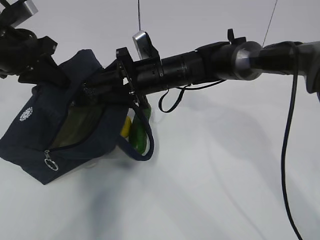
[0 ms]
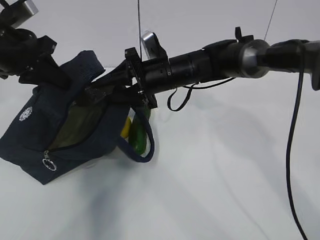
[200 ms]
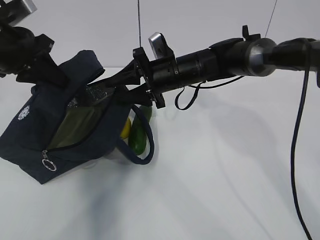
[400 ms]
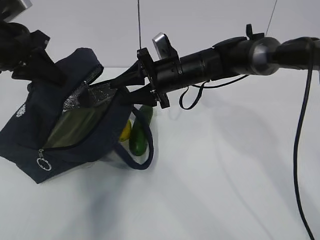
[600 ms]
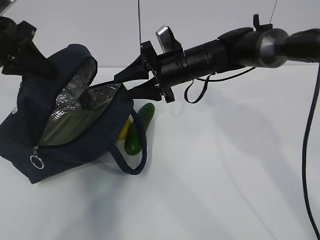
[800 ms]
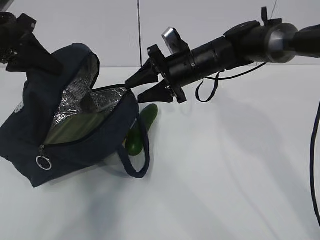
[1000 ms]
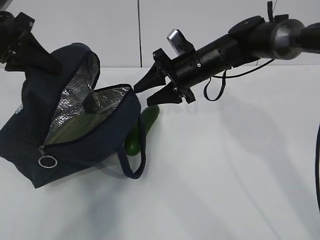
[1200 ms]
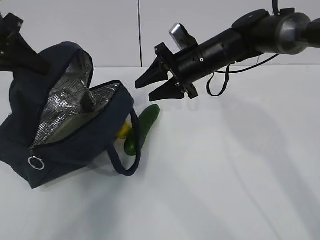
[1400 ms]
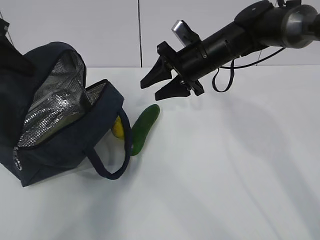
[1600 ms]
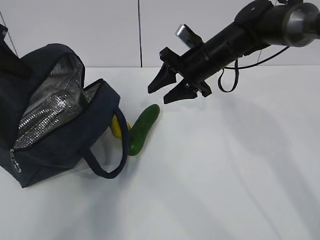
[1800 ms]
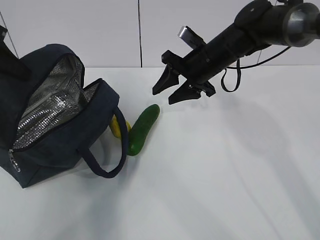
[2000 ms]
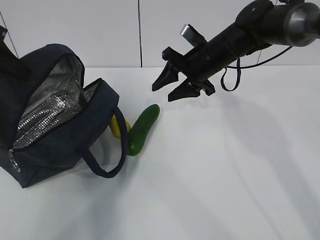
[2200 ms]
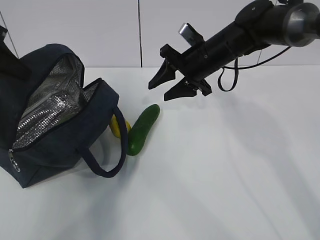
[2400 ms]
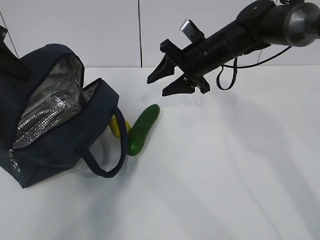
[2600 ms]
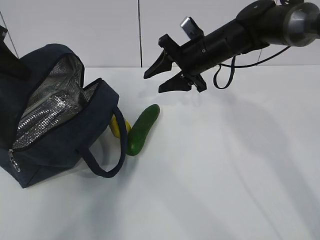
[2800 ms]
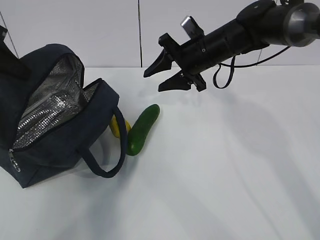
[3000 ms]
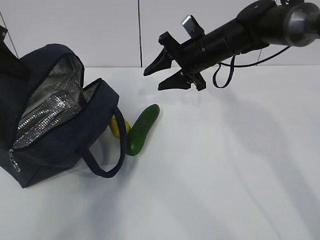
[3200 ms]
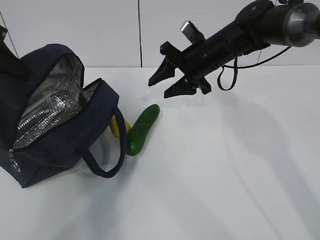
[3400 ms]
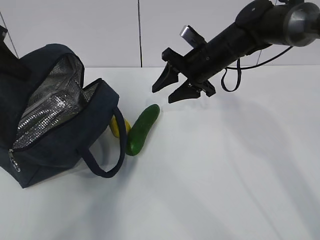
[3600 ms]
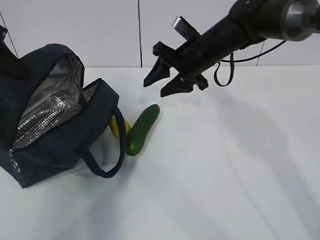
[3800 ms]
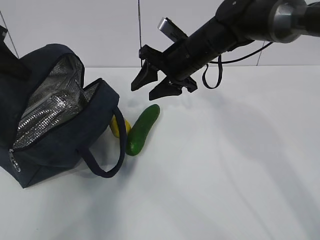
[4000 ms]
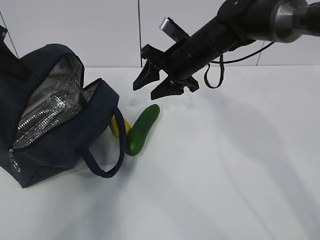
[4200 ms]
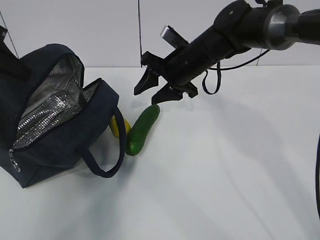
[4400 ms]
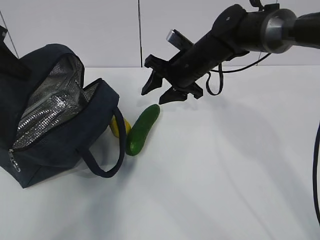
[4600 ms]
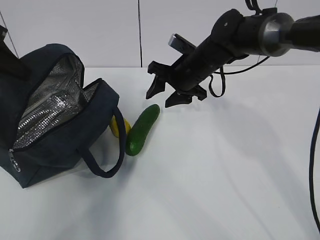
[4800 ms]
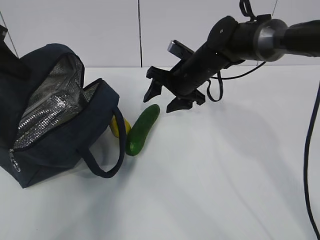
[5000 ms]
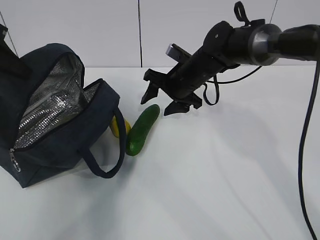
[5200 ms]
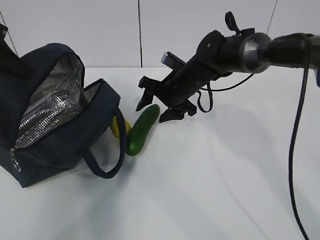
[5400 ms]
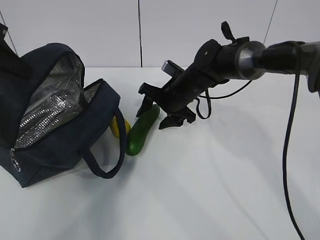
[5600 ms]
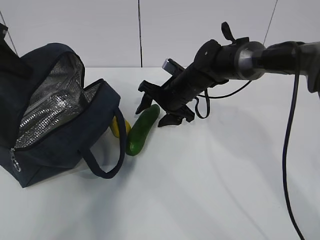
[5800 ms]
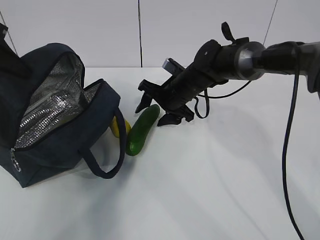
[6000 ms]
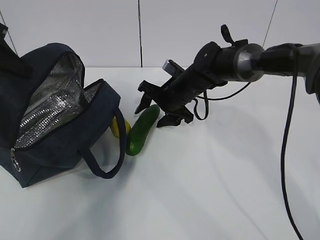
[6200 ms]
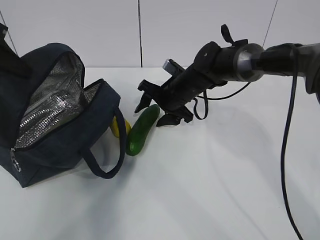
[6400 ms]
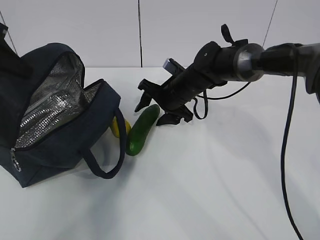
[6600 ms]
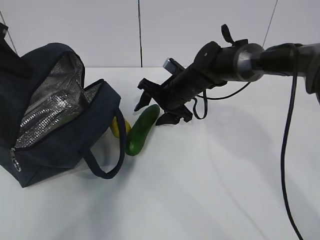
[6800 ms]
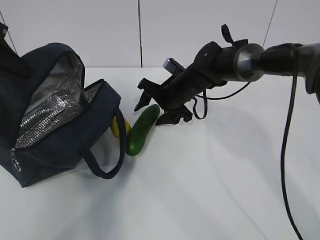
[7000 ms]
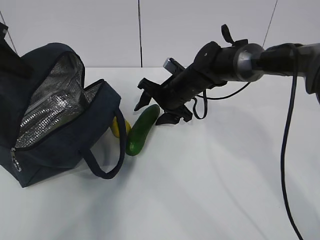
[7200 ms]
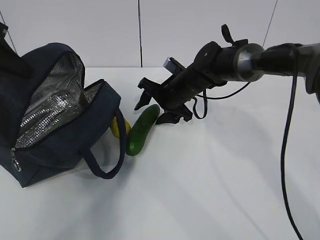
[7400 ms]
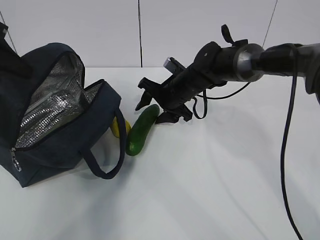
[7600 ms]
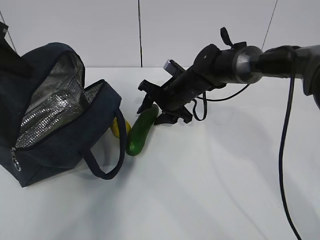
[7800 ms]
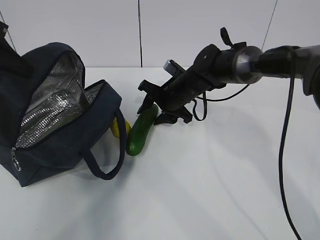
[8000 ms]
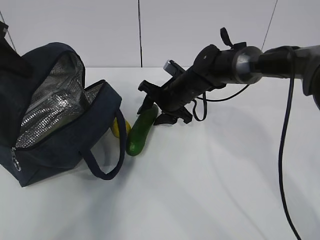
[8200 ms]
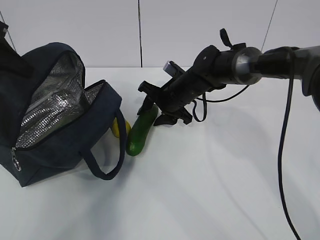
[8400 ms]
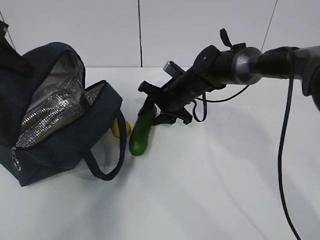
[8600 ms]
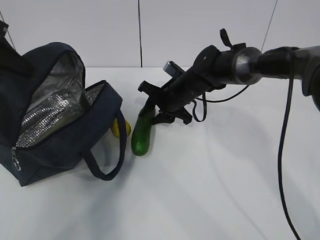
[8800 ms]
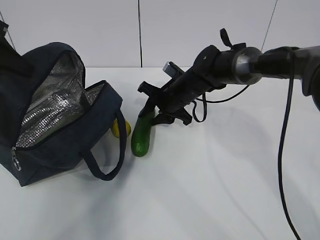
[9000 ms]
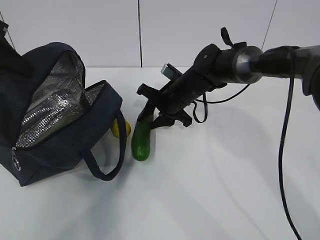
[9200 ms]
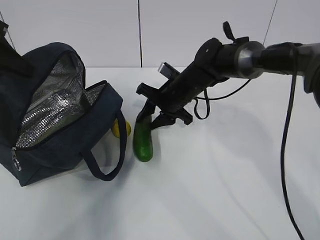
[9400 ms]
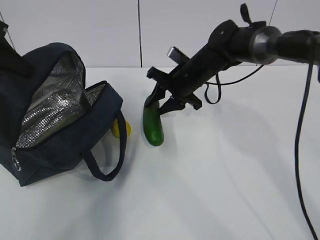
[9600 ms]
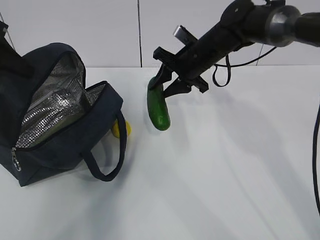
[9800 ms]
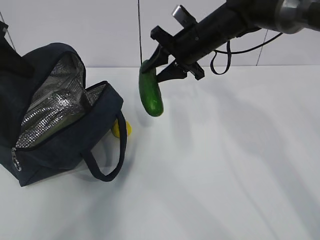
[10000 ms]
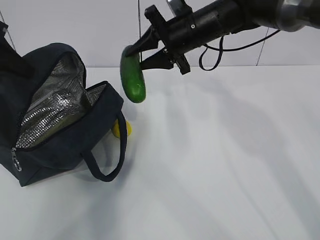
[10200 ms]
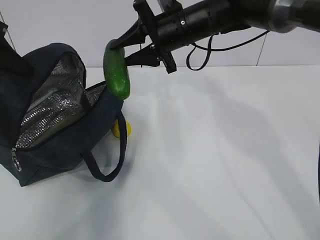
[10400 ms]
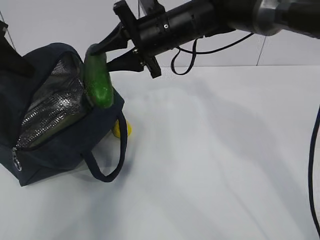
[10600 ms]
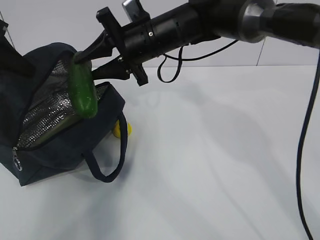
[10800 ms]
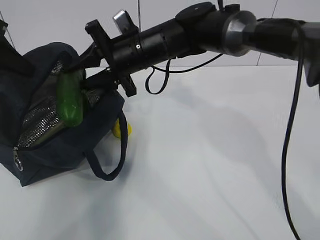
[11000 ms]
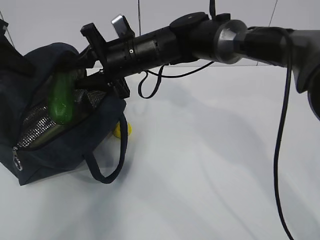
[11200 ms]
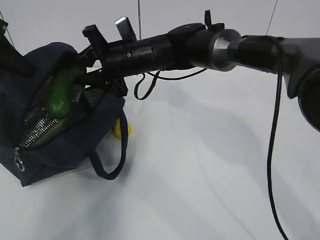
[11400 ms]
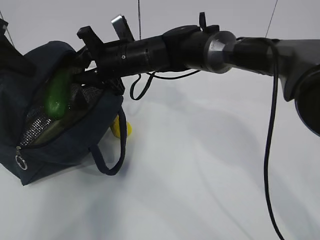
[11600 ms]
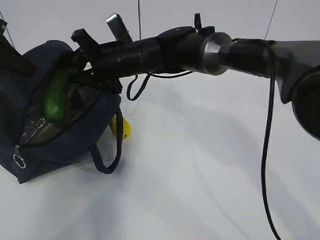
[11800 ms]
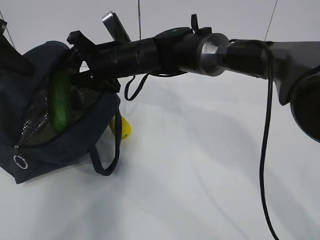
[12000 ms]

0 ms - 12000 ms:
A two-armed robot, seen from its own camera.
Step, 0 ms - 3600 ms: Grab the cucumber with your right hand.
Step, 3800 ms - 6600 ms: Place it into the bag with your right hand.
Step, 6800 ms - 11200 ms: Grab the lemon with your right hand.
0 ms - 1600 ms: The right gripper shifts some 10 cm to the right; the left gripper is displaced to the left by about 5 cm.
1600 ms - 4400 ms: The grippers stay close to where they were, moving slightly.
4400 ms - 6000 ms: The right gripper travels downward by some 10 cm.
6000 ms - 7600 ms: Both grippers stay about where they are.
7600 ms - 9000 ms: The right gripper closes up.
9000 ms - 10400 ms: The right gripper heads upward, covering some 15 cm.
10400 ms - 12000 ms: The right gripper goes about 10 cm to the left and downward.

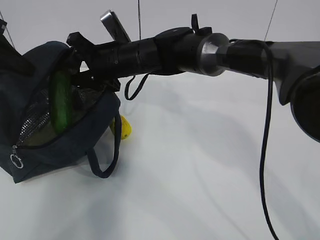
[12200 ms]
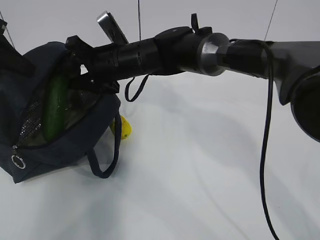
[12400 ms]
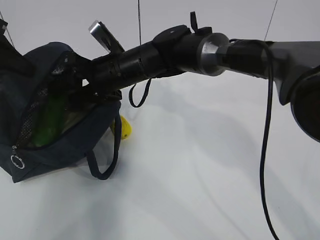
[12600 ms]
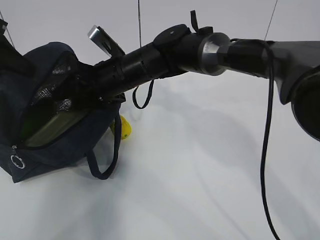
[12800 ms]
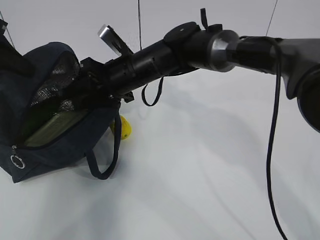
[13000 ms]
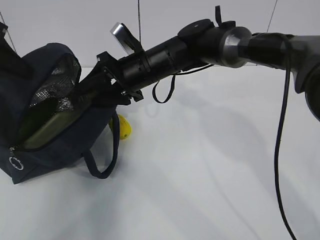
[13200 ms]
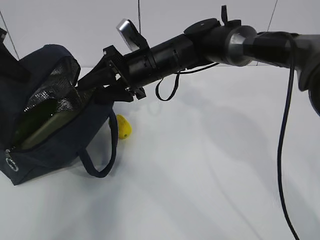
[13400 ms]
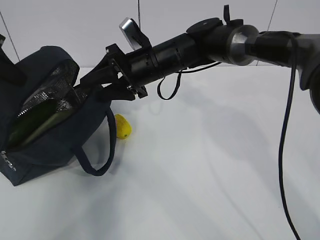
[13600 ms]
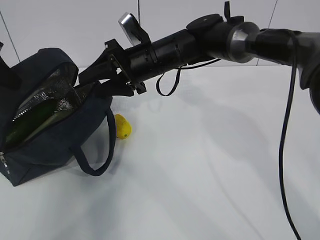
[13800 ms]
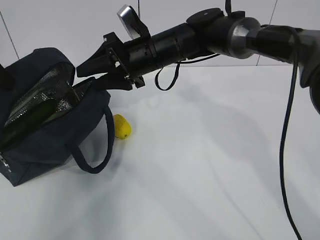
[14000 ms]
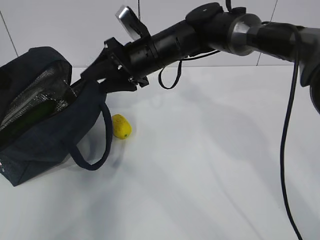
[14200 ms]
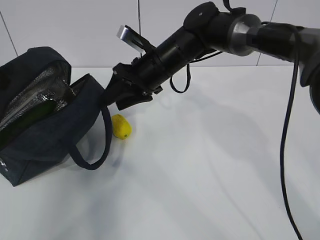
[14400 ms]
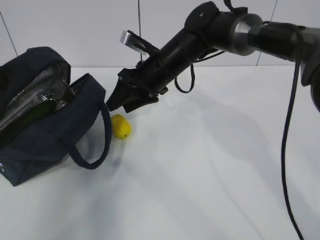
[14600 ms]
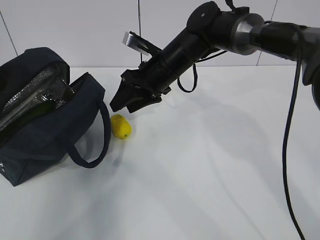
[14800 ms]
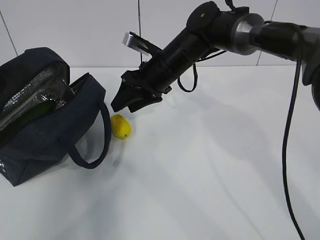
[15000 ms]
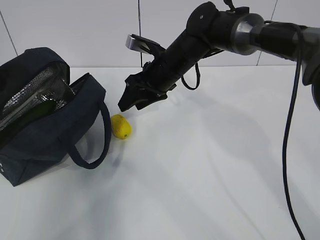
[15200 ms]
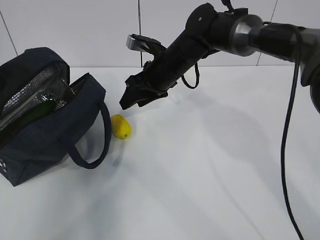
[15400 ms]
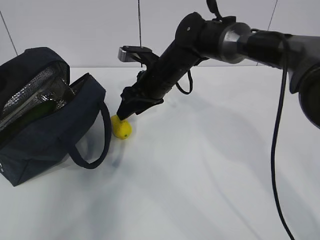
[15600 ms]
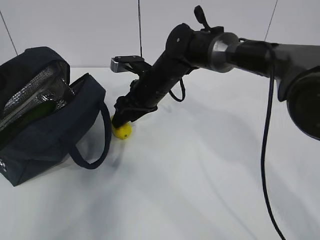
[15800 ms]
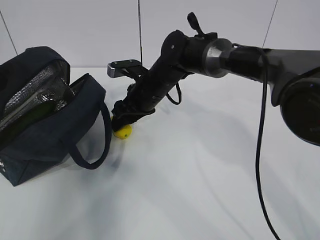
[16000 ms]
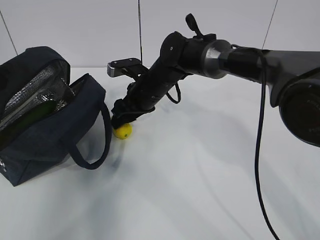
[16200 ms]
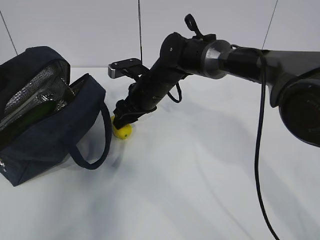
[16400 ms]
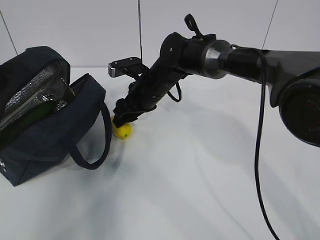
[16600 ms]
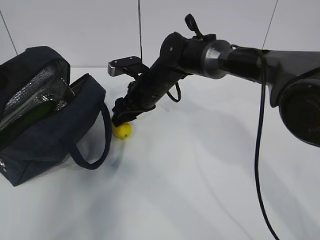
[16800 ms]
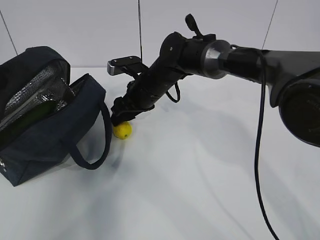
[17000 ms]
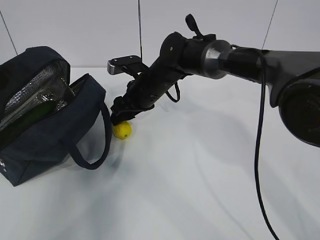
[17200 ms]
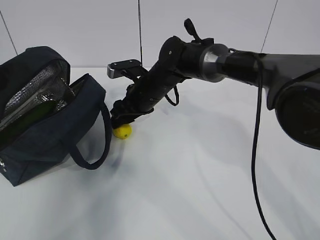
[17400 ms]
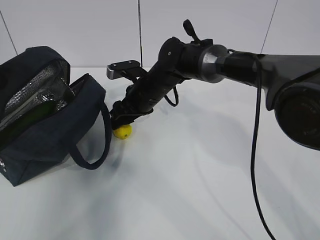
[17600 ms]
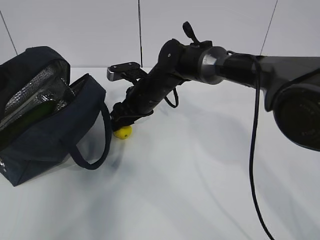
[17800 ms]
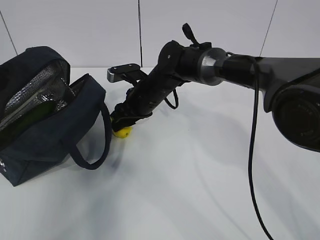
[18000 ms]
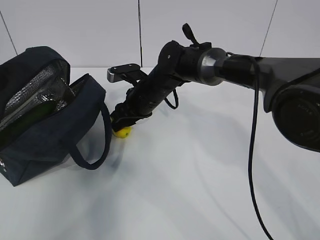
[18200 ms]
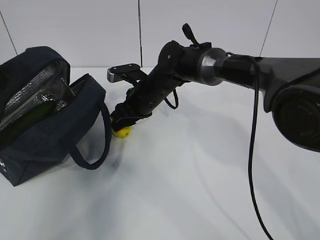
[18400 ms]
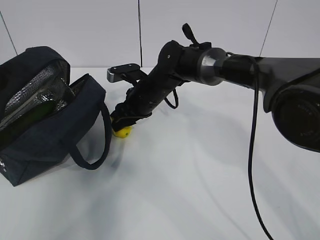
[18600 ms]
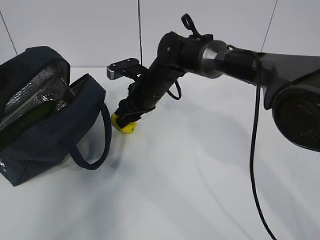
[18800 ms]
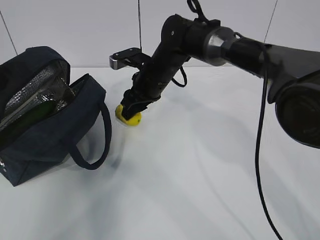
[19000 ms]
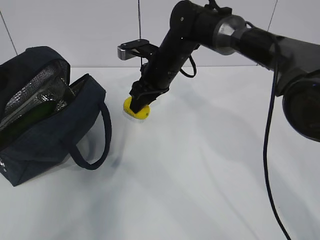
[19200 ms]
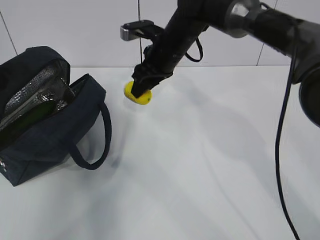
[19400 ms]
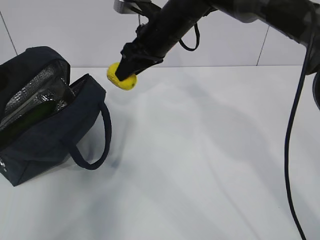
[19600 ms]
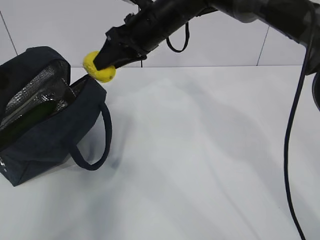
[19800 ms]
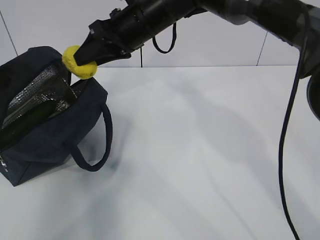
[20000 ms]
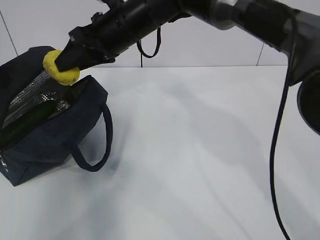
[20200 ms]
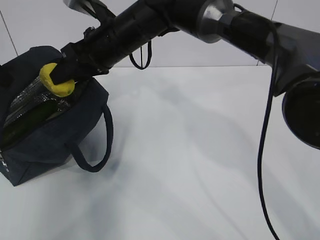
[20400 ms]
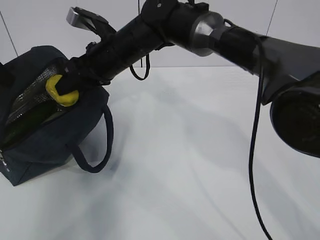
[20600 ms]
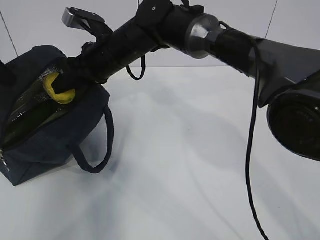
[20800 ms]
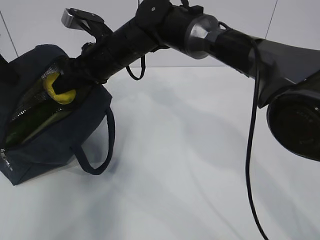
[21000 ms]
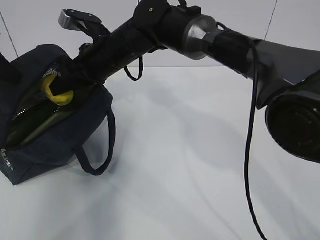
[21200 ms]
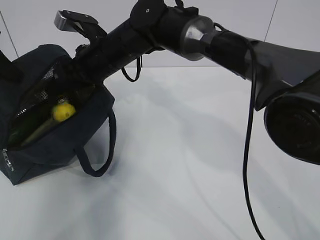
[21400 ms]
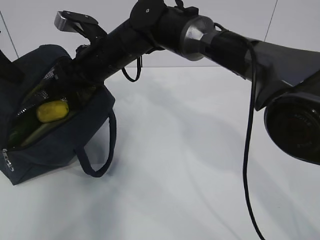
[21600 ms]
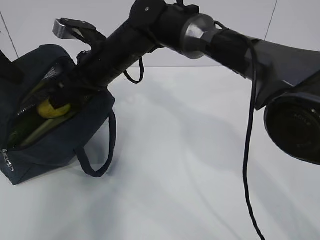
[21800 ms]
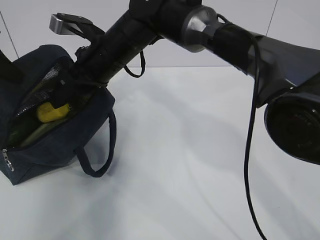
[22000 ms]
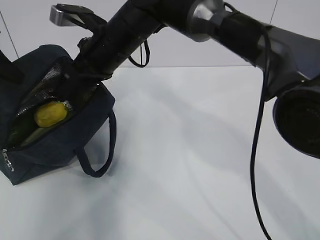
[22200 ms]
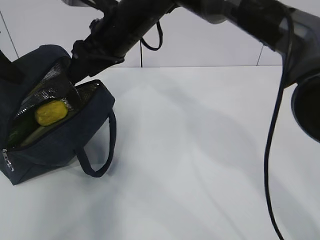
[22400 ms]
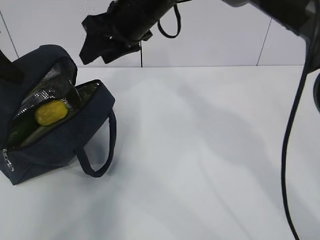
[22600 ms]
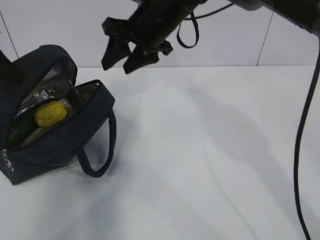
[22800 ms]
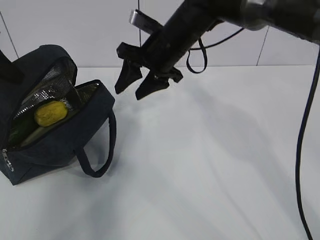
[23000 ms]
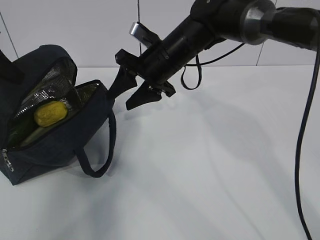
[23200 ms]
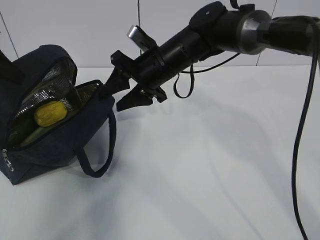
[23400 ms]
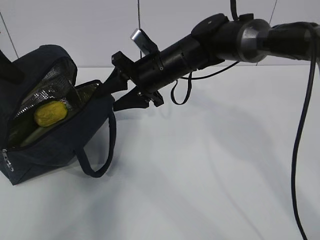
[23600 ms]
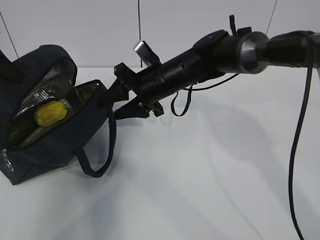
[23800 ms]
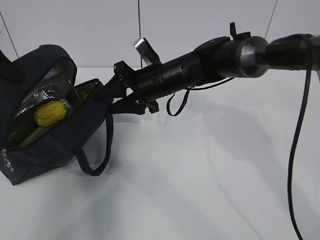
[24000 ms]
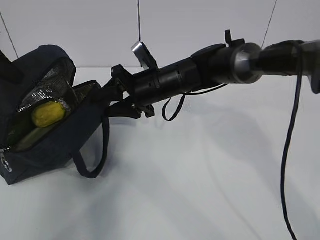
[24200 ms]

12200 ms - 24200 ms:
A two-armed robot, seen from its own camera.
Step, 12200 ms - 14200 ms: Secure the lunch bag with your left hand.
Step, 14400 ms - 16800 ms: Grab the lunch bag with your right hand.
Step, 17000 ms - 20000 ms: Move the lunch bag to the right.
12200 ms - 13800 ms: The right gripper is displaced to the right by approximately 5 cm.
15200 ms - 16600 ms: The right gripper moves roughly 5 cm.
16600 ms - 18200 ms: The grippers stay close to where they were, moving slightly.
18200 ms - 19800 ms: The right gripper is displaced upward by some 15 cm.
19800 ms - 21200 ms: The right gripper heads to the left, covering about 10 cm.
21200 ms - 22600 ms: The right gripper heads upward and to the right, covering about 10 cm.
22600 ms - 24200 ms: The right gripper travels downward by roughly 15 cm.
